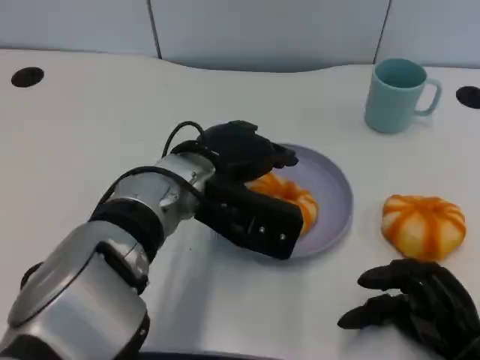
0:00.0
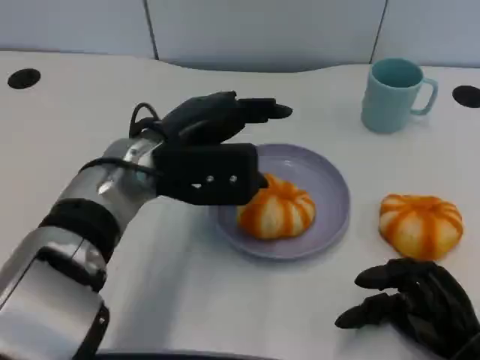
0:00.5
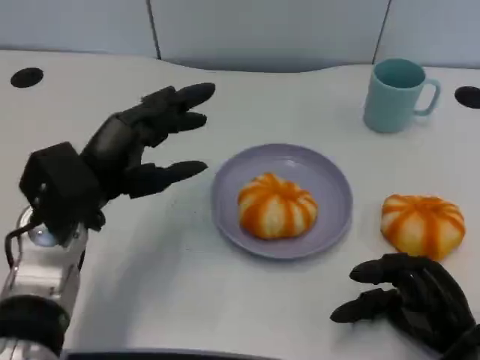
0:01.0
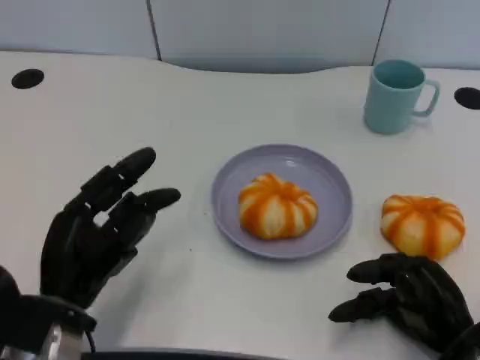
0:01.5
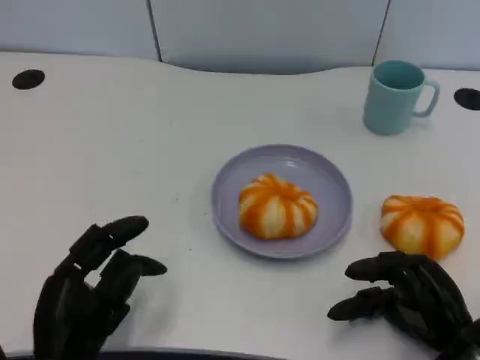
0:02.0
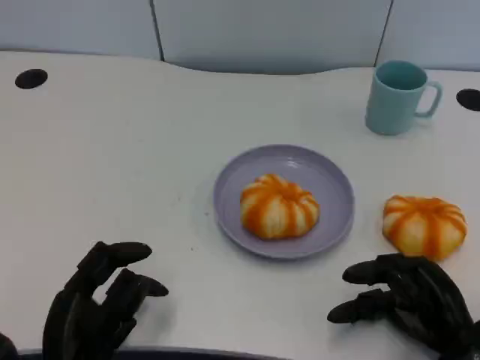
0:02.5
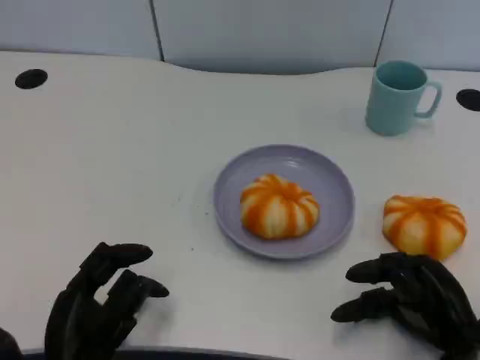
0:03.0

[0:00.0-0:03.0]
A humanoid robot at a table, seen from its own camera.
Task of the whole recording: Grasp the bread from the table and place it into the plate.
0:00.0 to 0:01.5: The left hand goes some 20 cm to the left, backward and downward.
0:01.5 to 0:03.0: The left hand shifts by some 5 cm.

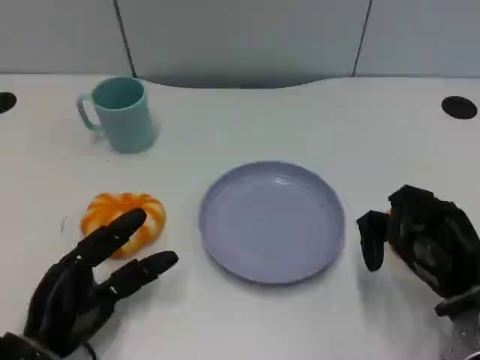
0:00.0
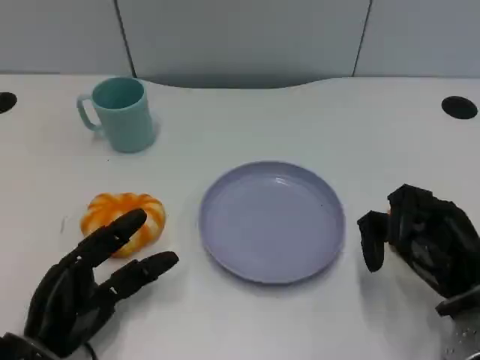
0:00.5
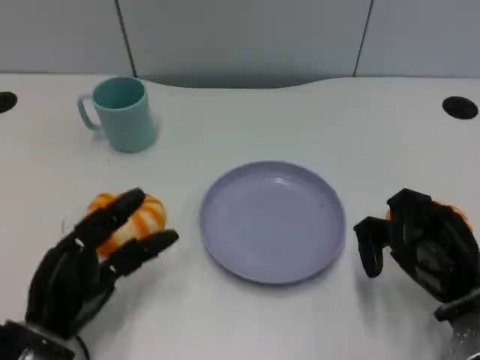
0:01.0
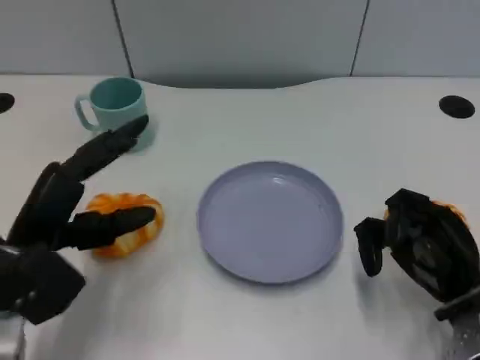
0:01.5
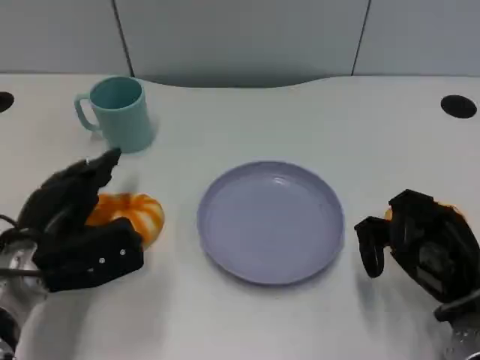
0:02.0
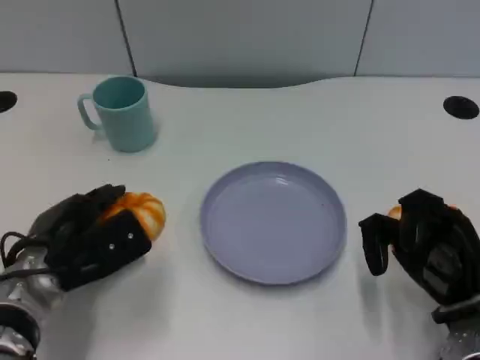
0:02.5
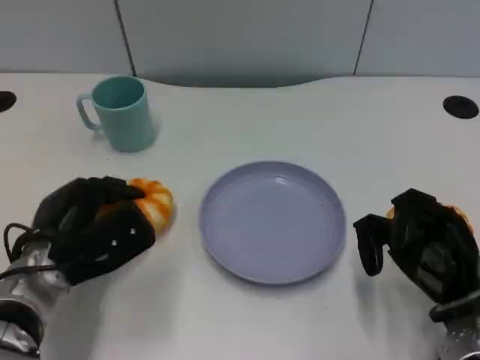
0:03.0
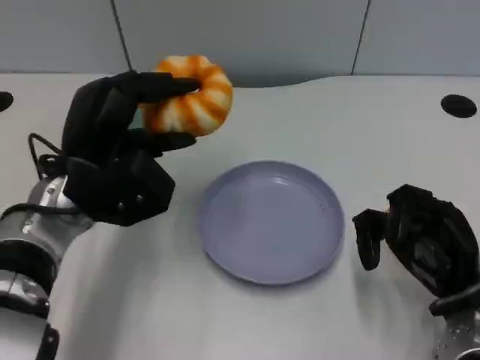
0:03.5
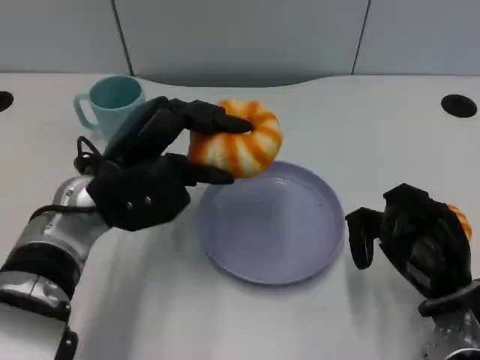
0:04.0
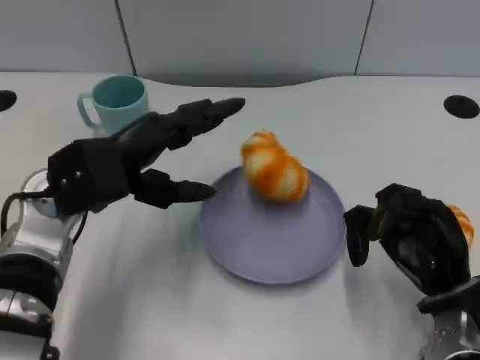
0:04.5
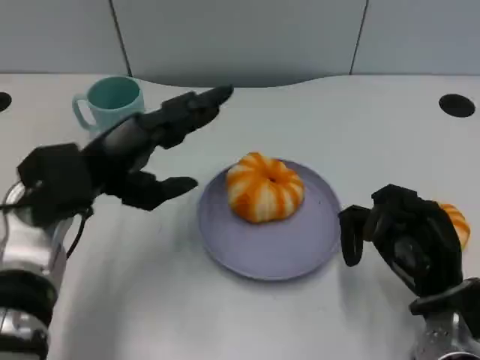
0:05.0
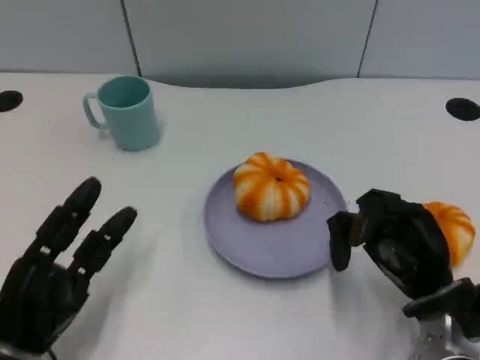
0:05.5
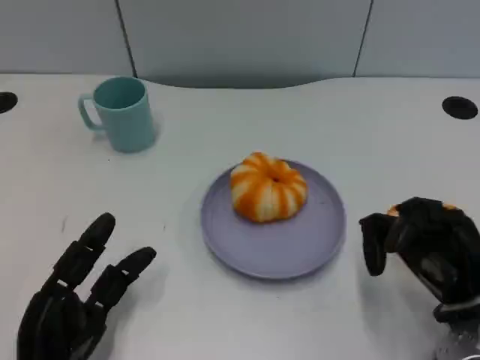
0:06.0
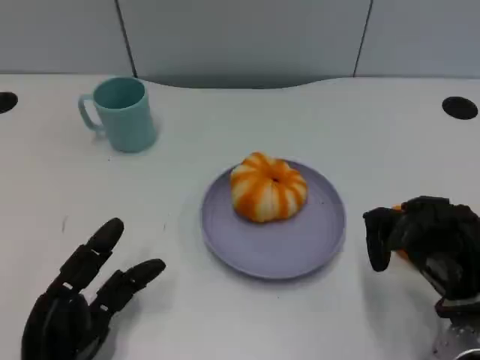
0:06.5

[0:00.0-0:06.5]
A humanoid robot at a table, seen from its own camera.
Task of the whole recording: Grasp the bread from the table and place it into the plate.
0:00.0 to 0:02.0: The left hand is displaced forward and upward by some 10 cm.
0:02.0 to 0:04.5: The left hand goes approximately 10 cm upward.
0:04.5 to 0:06.5: The left hand travels downward and backward by about 20 cm.

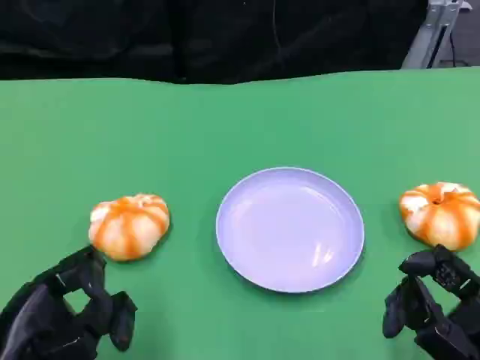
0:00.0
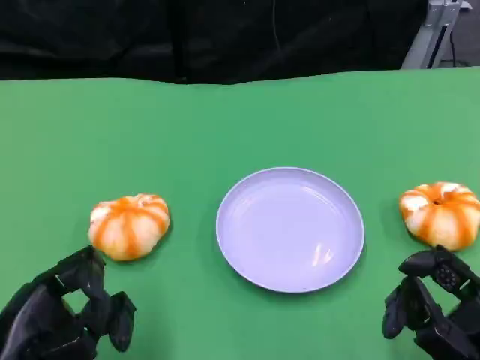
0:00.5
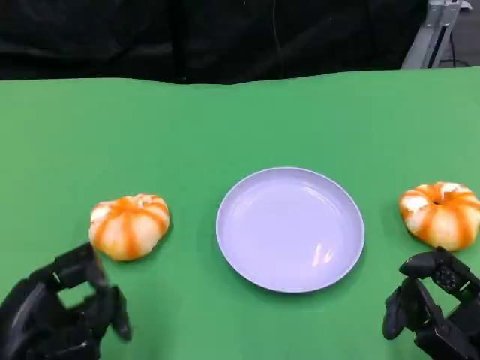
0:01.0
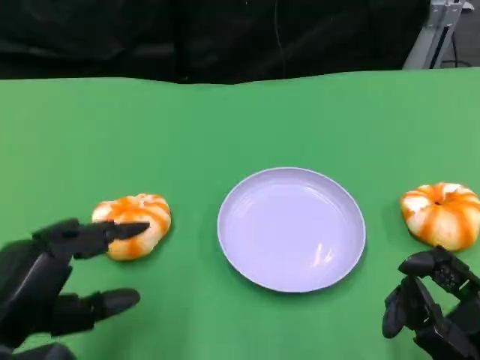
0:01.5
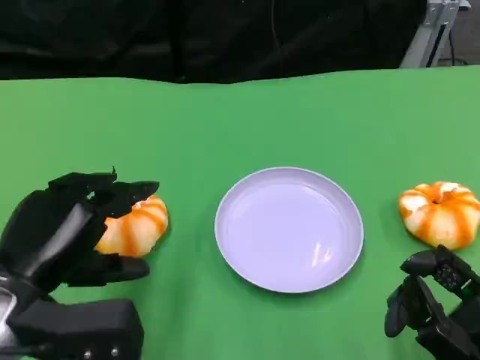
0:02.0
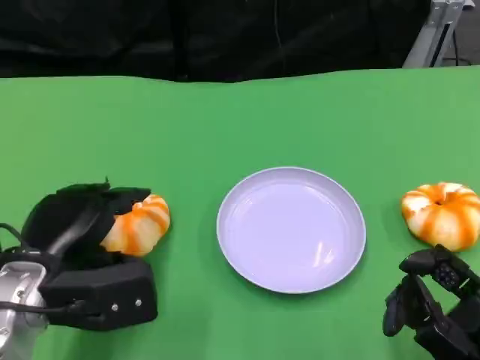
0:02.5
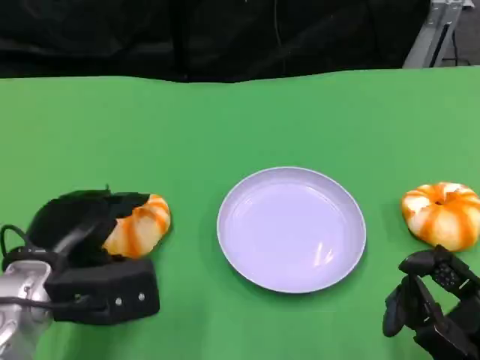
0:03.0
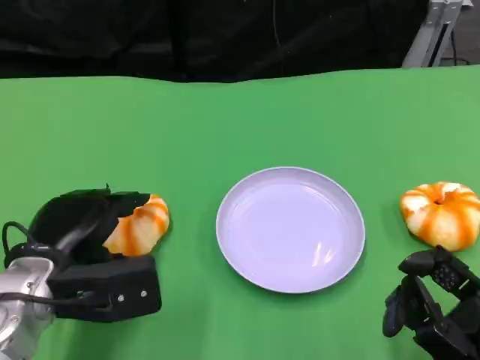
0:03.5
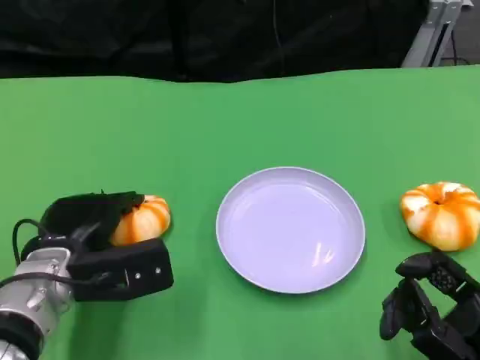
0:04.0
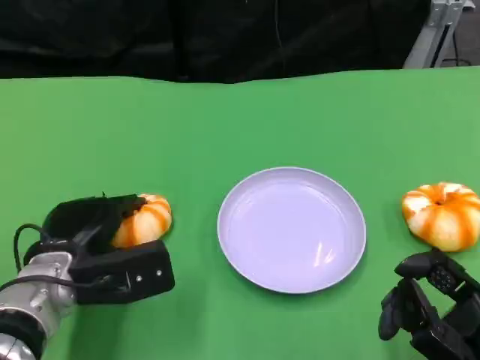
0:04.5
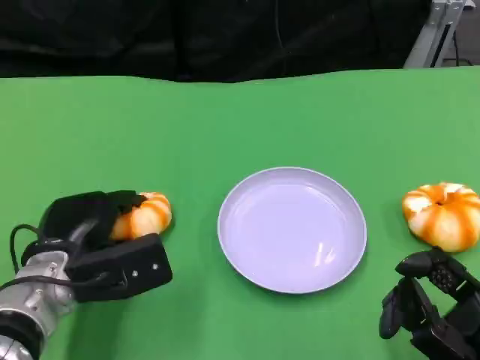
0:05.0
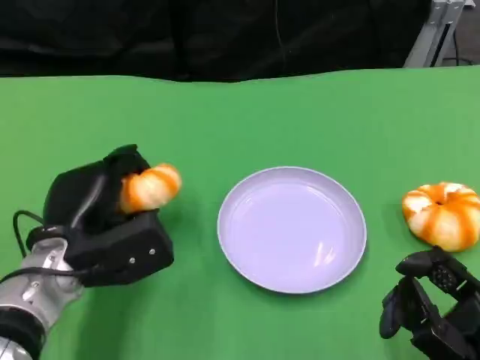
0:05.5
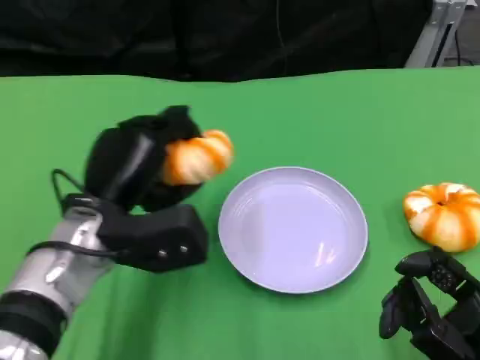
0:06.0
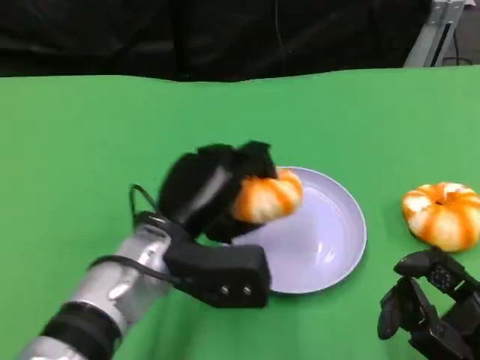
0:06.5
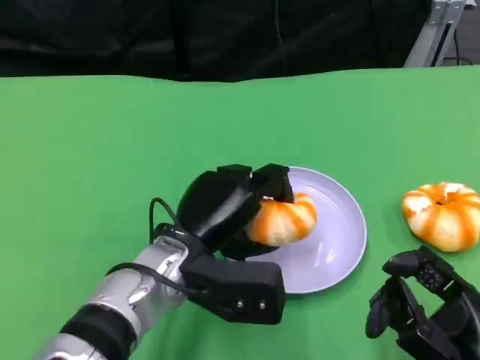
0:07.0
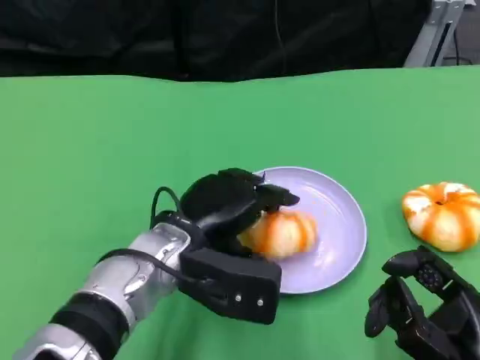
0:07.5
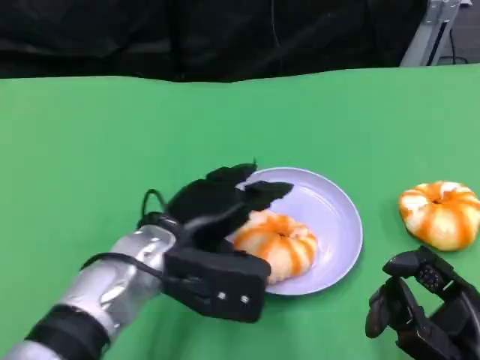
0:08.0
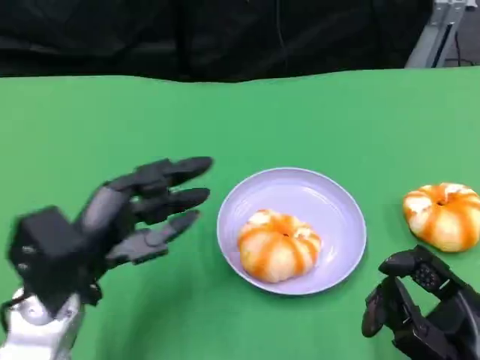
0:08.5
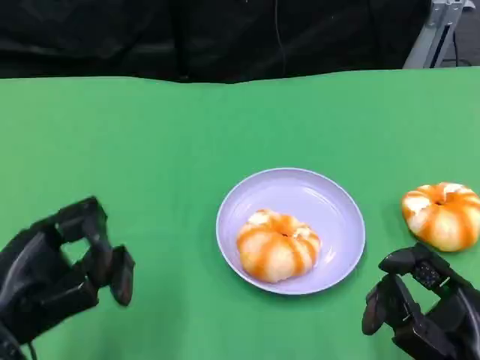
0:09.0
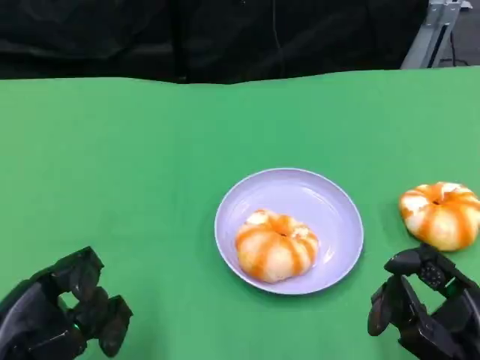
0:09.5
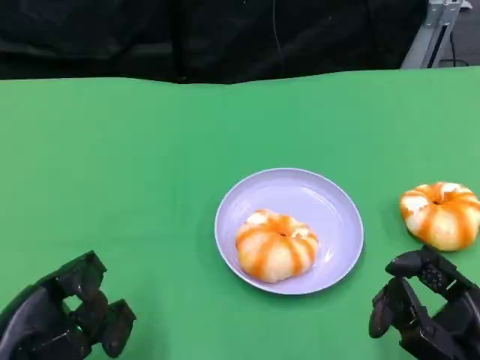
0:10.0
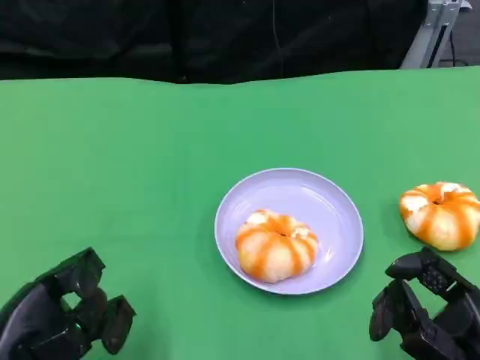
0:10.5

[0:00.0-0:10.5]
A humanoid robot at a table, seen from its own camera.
Task of the whole recording: Grasp the bread from the table and place it into the plate.
0:00.0 to 0:02.0: The left hand moves forward, roughly 5 cm.
0:02.0 to 0:04.0: The left hand moves forward and downward, some 10 cm.
0:04.0 to 0:06.5: The left hand goes approximately 10 cm to the right.
0:06.5 to 0:08.5: The left hand travels to the left by roughly 10 cm.
0:08.5 to 0:10.5: The left hand travels backward and to the left by about 10 cm.

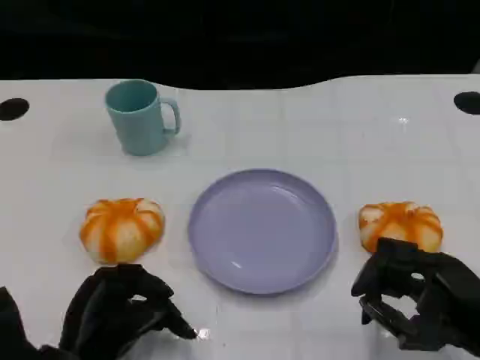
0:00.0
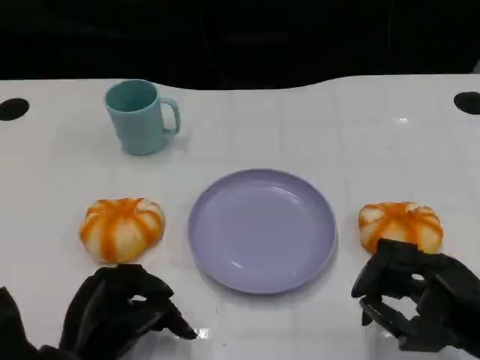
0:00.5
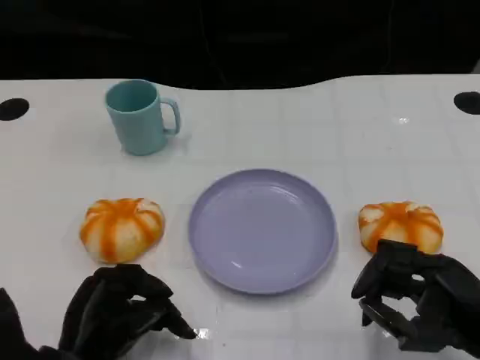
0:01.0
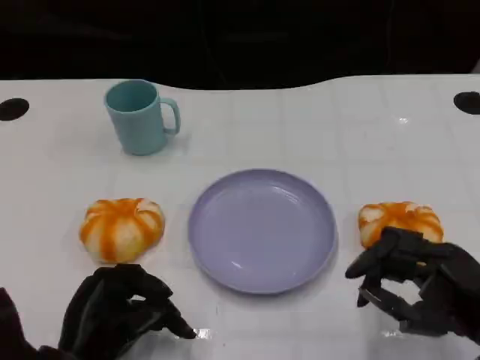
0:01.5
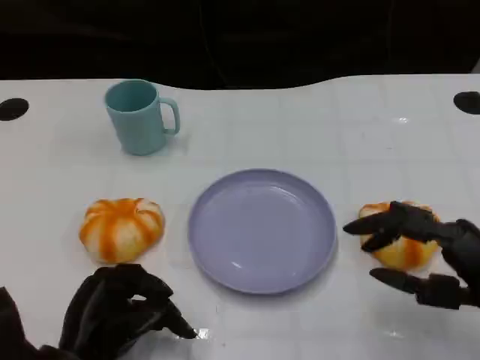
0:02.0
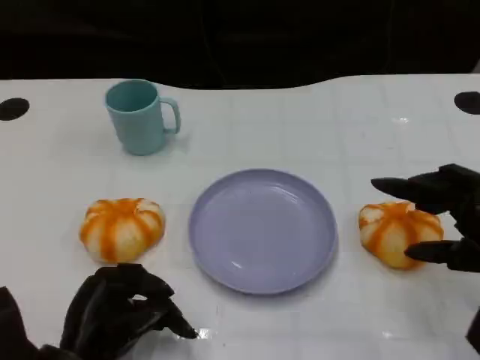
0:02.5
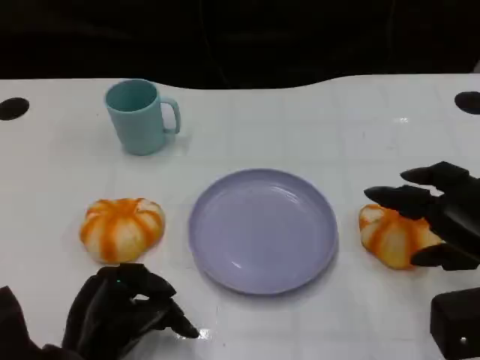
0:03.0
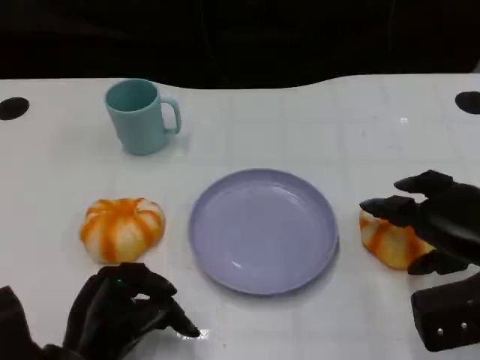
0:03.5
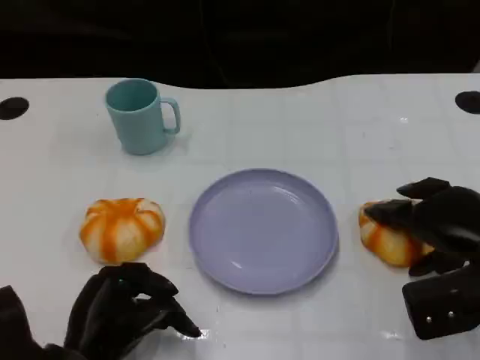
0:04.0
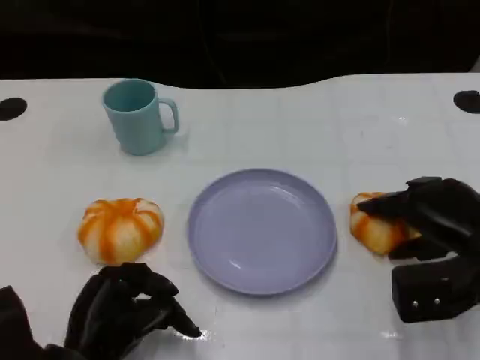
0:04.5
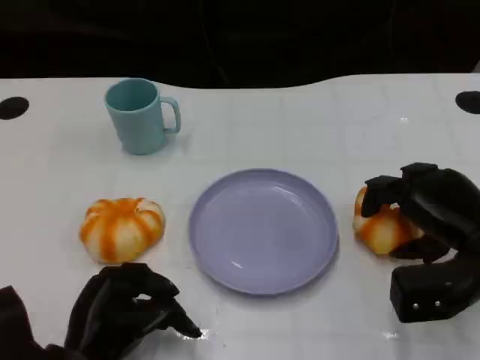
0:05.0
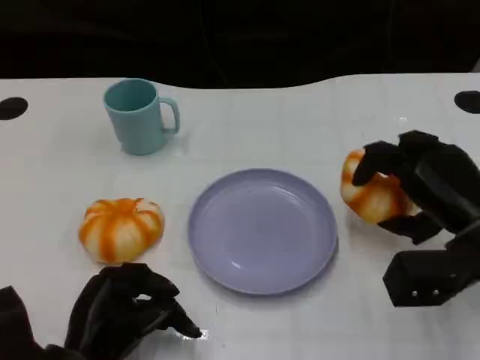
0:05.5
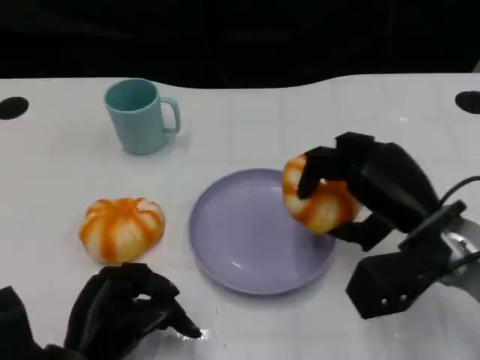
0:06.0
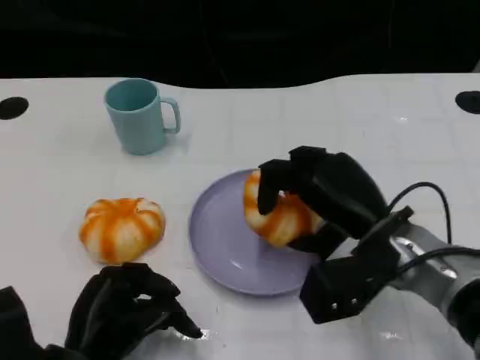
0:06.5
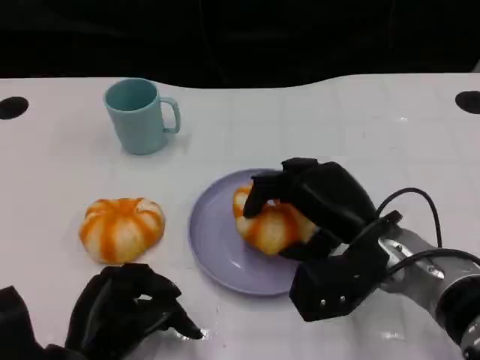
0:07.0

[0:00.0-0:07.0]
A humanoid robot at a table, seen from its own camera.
Task of the whole recording: Grasp the bread from the table and place it into the plate.
0:02.0 to 0:03.5: The right hand heads forward, covering roughly 5 cm.
0:03.5 to 0:05.0: The hands make only small movements.
0:05.0 to 0:07.0: The right hand goes roughly 10 cm to the left.
